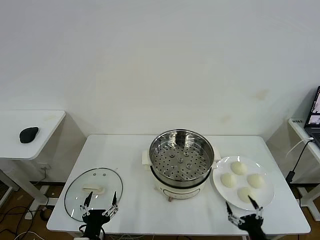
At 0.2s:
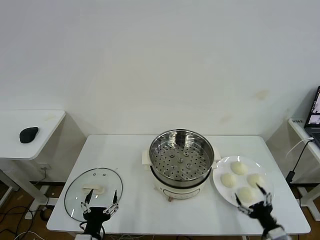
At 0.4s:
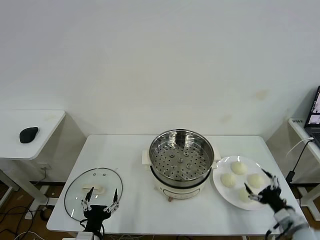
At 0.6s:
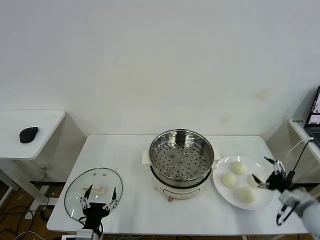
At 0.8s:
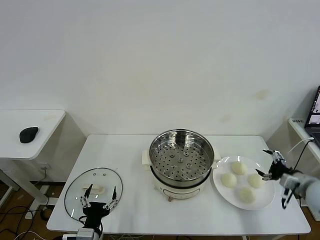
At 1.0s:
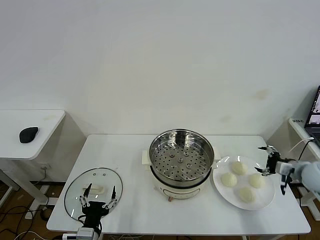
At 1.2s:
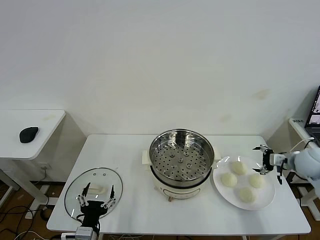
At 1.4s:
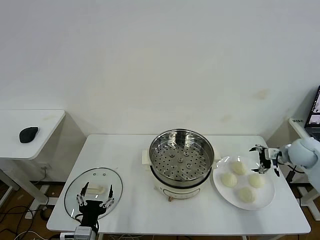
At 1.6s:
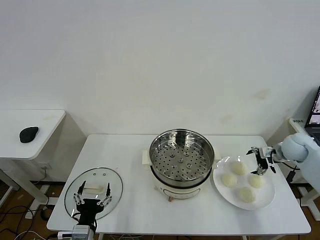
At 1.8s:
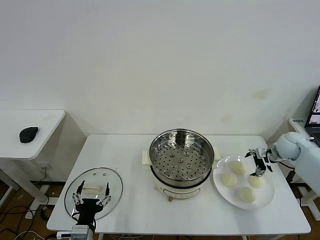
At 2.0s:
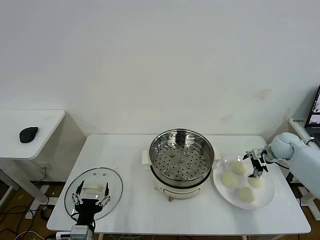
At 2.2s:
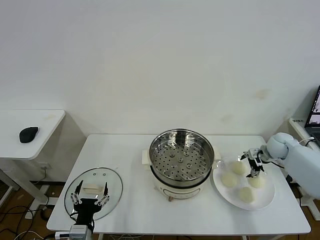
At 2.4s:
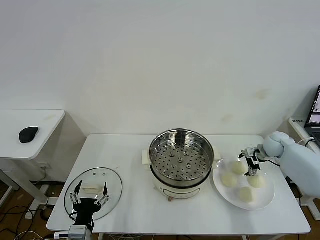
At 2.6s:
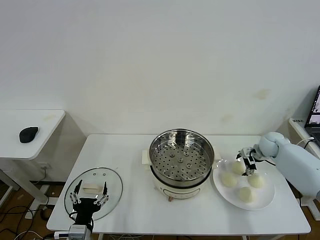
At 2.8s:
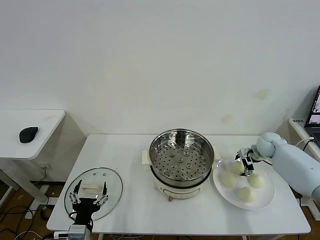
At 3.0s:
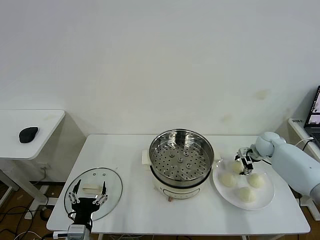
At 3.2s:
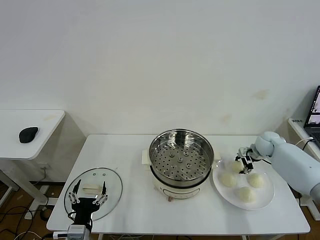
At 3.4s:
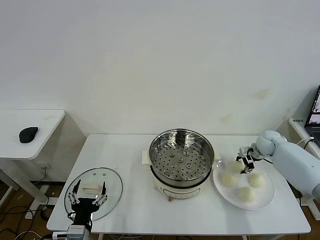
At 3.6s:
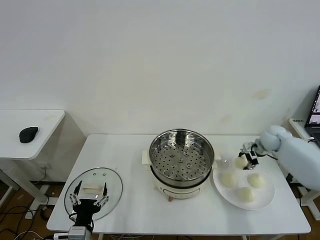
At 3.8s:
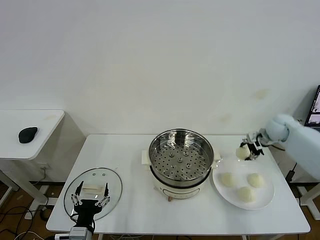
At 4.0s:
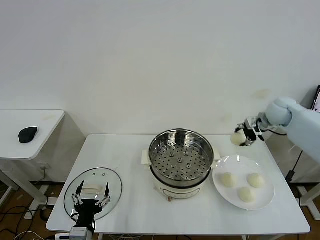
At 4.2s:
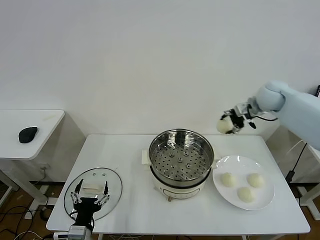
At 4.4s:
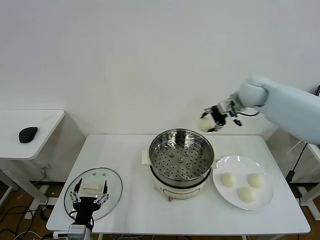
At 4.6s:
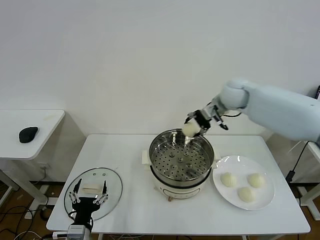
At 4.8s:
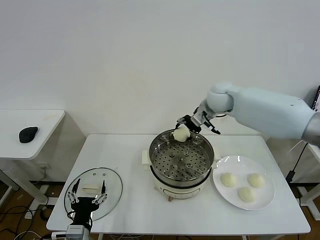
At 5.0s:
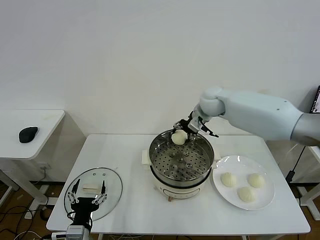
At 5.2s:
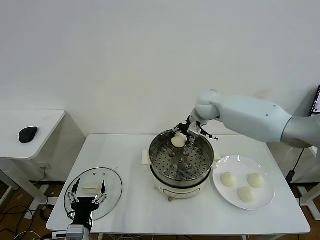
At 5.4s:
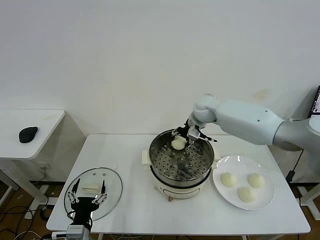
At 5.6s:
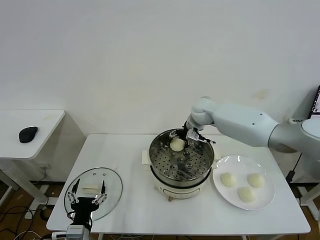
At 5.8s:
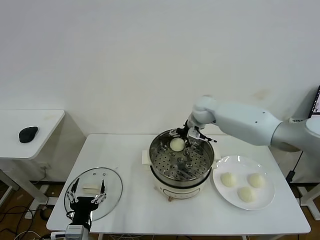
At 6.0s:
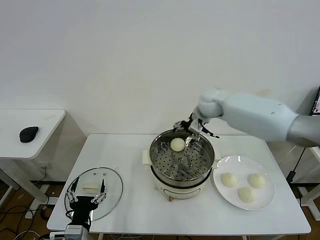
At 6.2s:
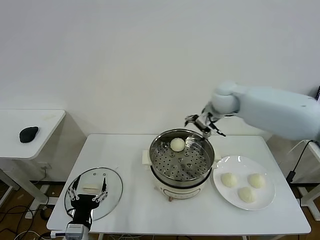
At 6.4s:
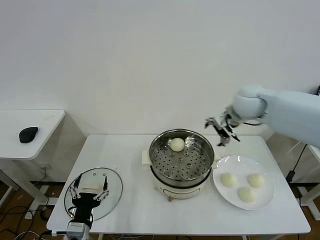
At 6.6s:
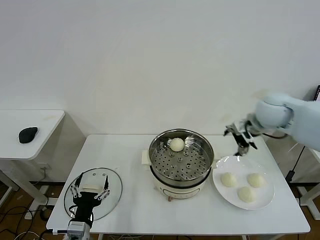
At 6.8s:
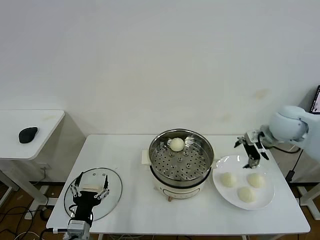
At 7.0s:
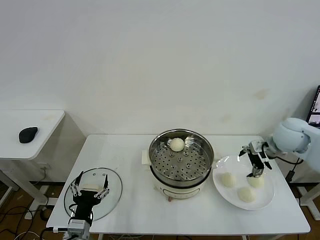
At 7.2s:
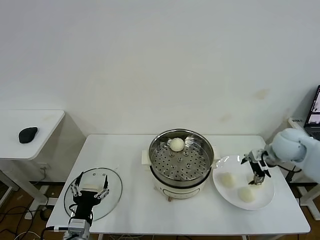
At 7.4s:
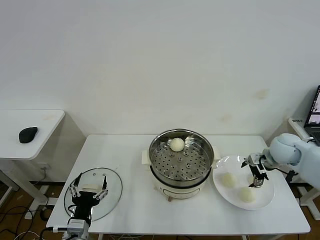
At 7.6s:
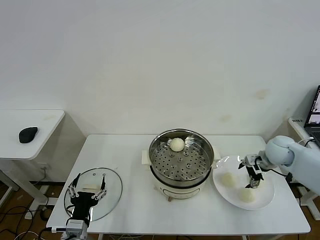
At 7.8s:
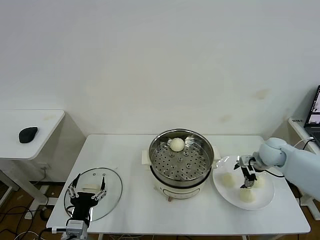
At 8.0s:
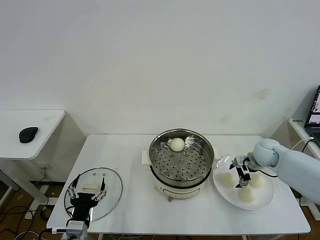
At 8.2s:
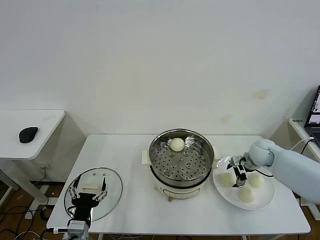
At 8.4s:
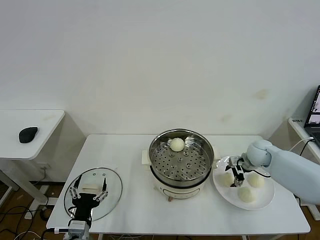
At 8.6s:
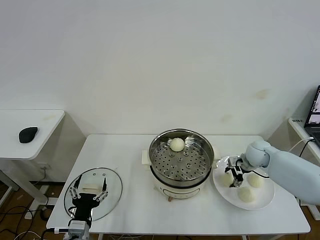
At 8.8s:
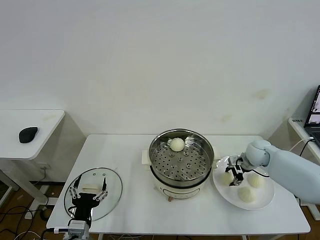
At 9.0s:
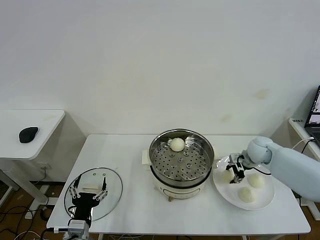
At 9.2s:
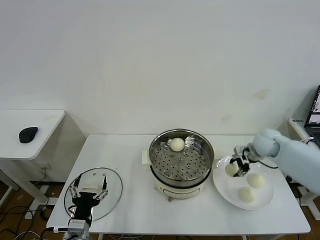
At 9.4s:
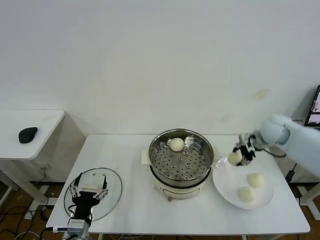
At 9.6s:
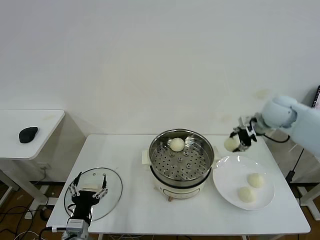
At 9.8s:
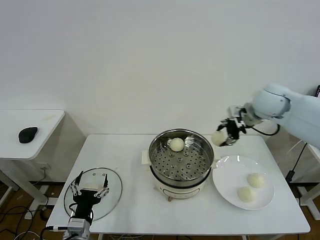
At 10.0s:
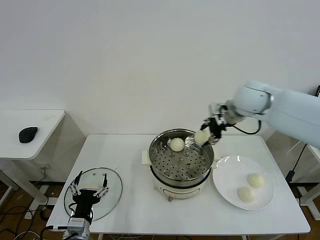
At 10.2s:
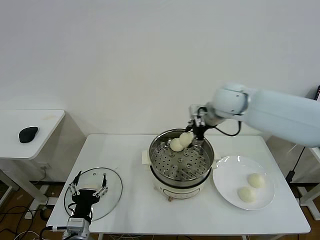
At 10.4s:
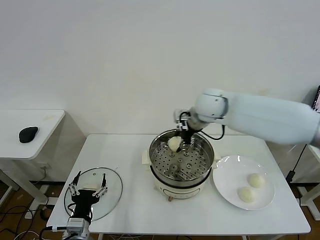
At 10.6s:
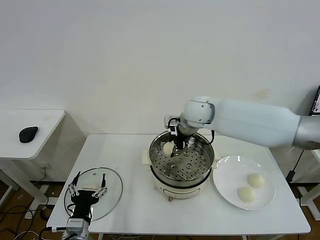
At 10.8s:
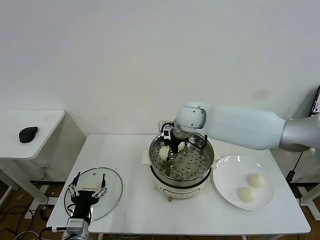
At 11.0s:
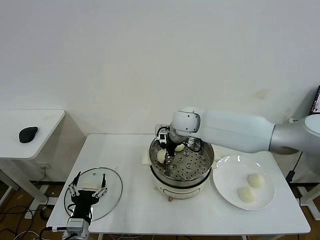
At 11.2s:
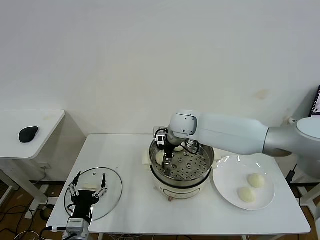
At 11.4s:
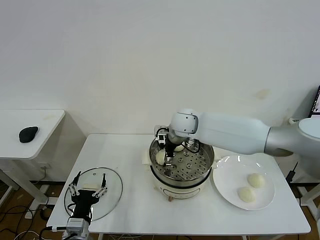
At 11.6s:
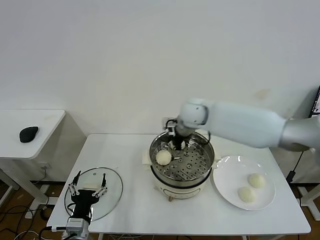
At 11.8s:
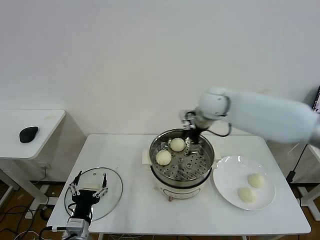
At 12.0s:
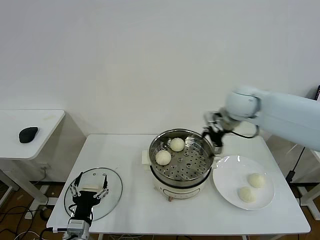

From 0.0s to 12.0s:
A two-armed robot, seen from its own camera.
Task of the whole recording: take steamed baozi put them in steamer then cover it.
Step, from 0.0s to 3.2s: Grasp the baozi in the plate with right gripper.
Step, from 3.6s to 5.8s: Place the baozi on the steamer with right gripper.
Step, from 6.0s to 8.6s: Grasp the baozi in the plate with right gripper.
Step, from 8.8s to 11.4s: Place the baozi on the steamer with right gripper.
From 1.6s to 3.0s: The right gripper heads forward and downward, covering approximately 10 cm, and closes.
From 3.0s to 4.4s: The right gripper goes roughly 30 cm upward and to the left.
From 4.4s to 6.0s: The right gripper heads to the left, covering some 10 cm, and opens up.
From 6.0s to 7.6s: The right gripper goes some 30 cm to the right, downward and backward.
From 7.6s to 9.0s: The right gripper shifts by about 5 cm, and closes.
From 9.0s to 10.4s: The right gripper heads to the left and upward, covering roughly 30 cm.
From 10.4s to 12.0s: The right gripper goes about 10 cm to the right, and opens up.

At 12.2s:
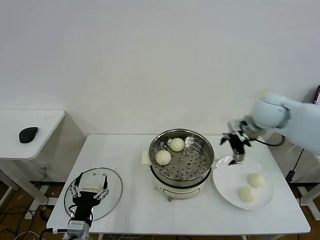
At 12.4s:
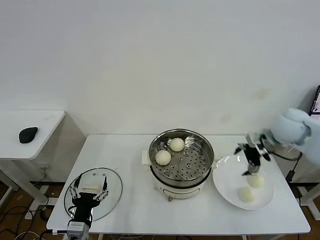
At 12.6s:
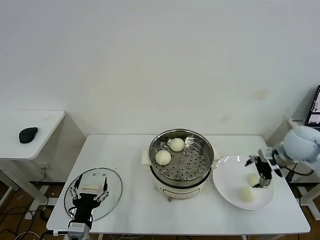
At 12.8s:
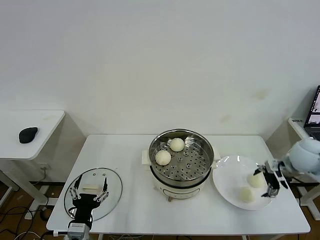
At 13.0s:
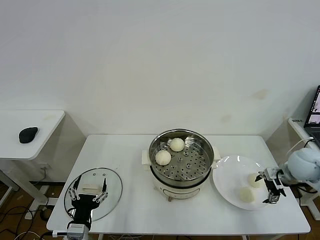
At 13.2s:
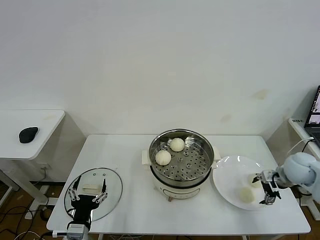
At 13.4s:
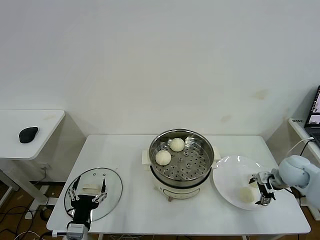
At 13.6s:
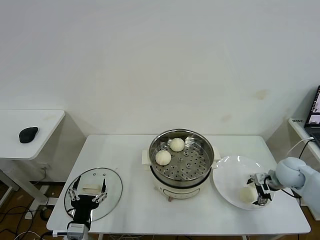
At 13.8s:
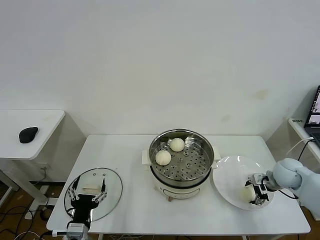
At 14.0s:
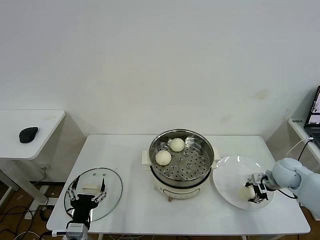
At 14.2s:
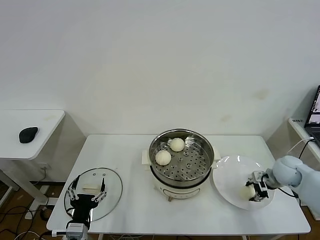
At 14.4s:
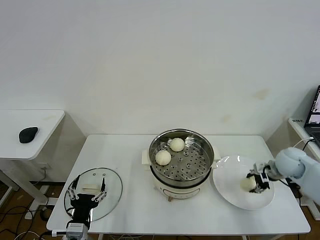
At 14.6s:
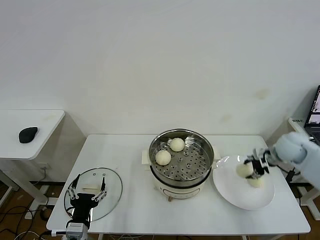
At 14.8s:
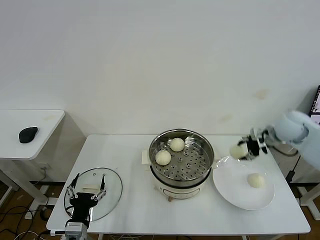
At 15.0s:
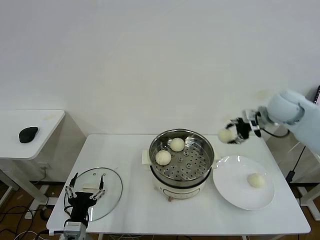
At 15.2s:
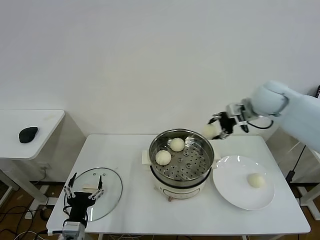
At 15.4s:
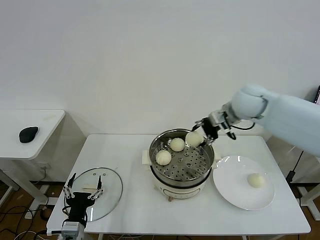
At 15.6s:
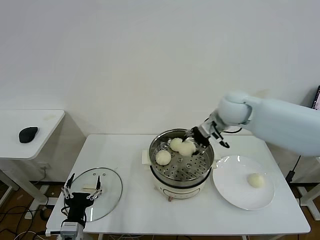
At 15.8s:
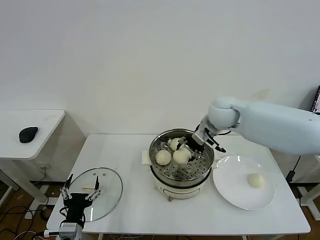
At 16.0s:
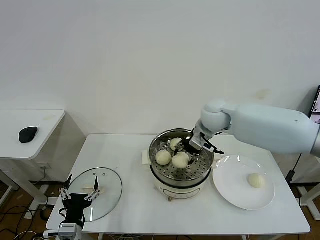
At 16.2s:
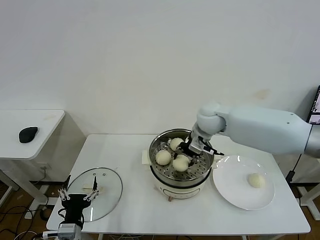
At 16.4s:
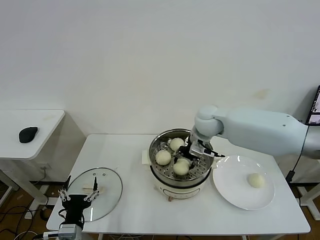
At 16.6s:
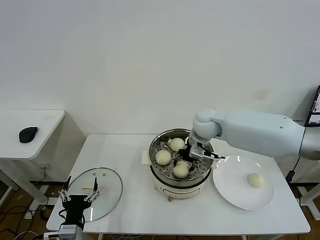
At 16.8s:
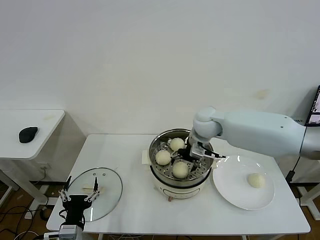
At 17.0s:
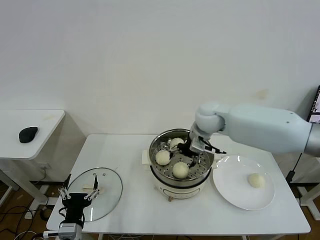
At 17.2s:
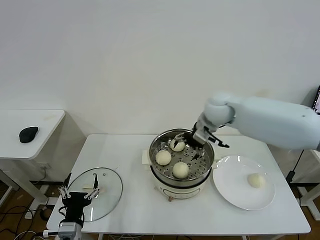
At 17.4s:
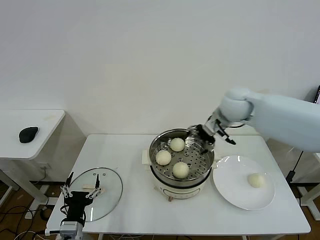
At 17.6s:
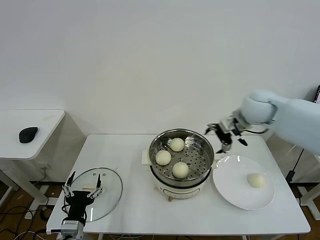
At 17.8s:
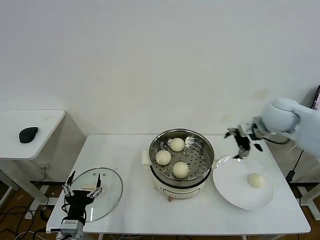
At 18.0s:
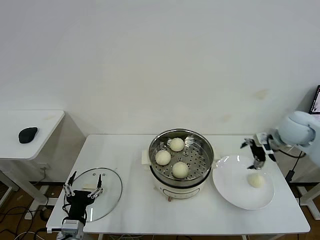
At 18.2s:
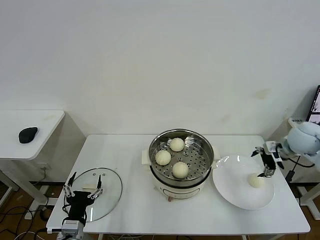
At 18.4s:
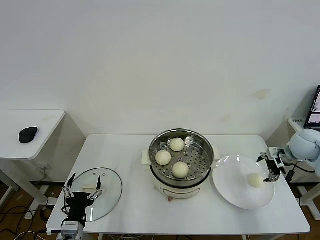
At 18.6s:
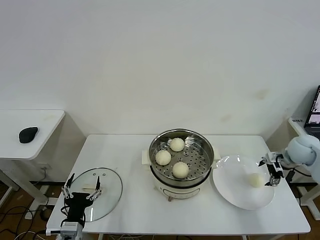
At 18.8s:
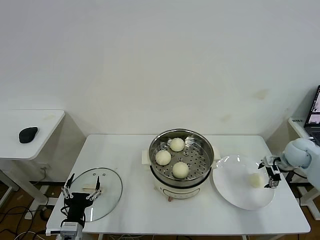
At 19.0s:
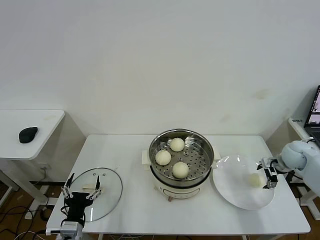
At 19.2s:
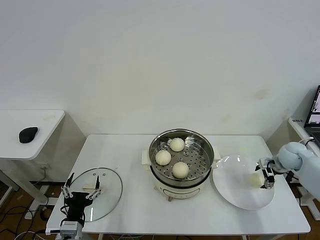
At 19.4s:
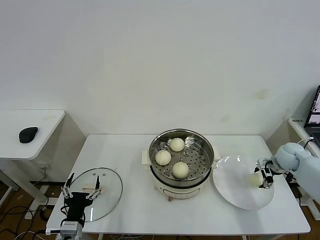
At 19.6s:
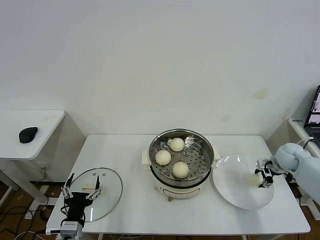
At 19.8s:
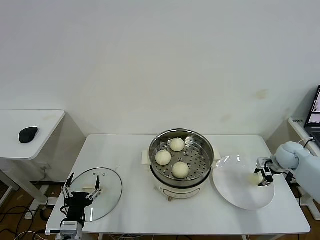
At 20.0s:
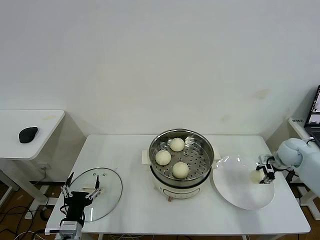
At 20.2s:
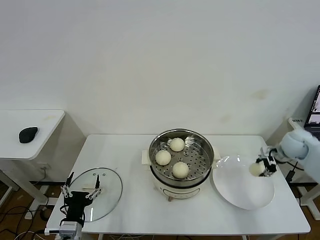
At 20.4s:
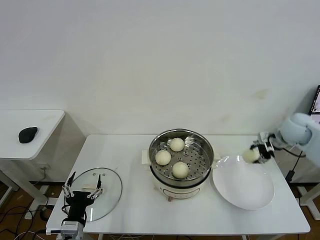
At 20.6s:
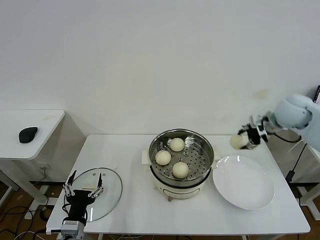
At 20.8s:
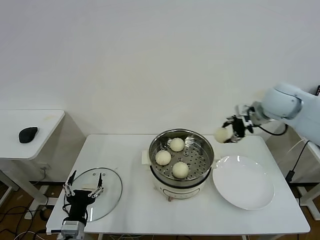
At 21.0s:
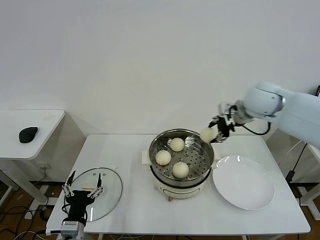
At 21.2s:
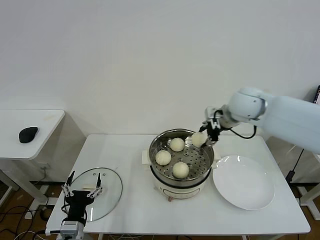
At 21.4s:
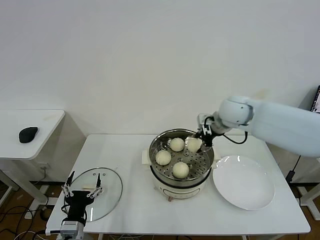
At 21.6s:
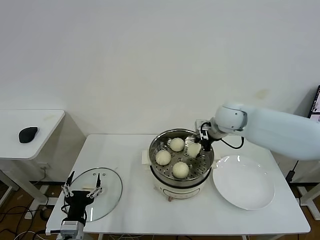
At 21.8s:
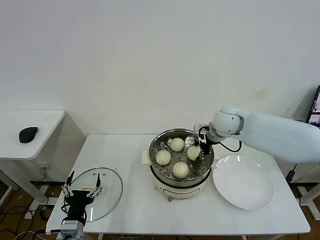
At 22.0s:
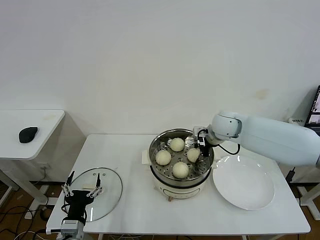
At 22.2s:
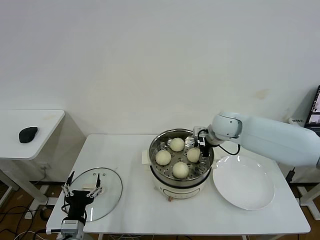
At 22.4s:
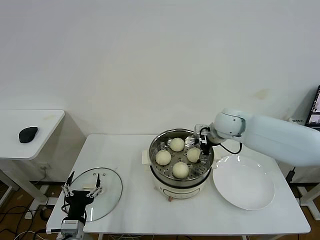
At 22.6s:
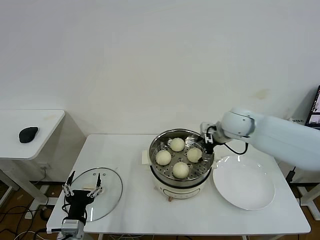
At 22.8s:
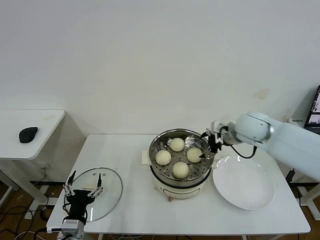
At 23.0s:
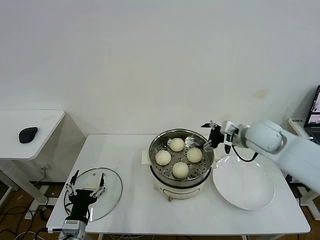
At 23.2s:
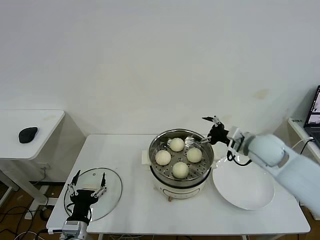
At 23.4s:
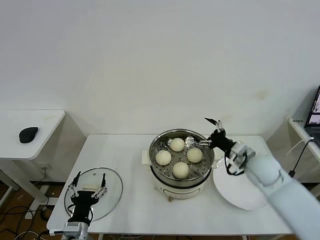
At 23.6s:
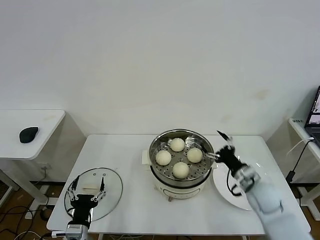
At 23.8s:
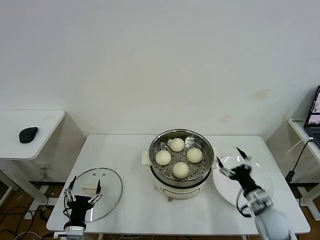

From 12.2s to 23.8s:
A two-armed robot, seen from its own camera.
Task of the whole recording: take steamed baozi put them in steamer then cover it.
Step, from 12.2s to 14.2s: Grasp the baozi in the plate with right gripper.
Step, from 14.4s to 17.0s: Place the baozi on the steamer with right gripper.
Step, from 17.2s to 19.6s: Grasp the baozi in the plate with right gripper.
Step, from 19.8s to 22.4s: Place the baozi on the steamer with right gripper.
From 12.2s to 13.6s: The right gripper heads downward and to the right, covering roughly 25 cm.
From 13.6s to 15.0s: The right gripper heads upward and forward, covering some 25 cm, and closes.
From 15.0s to 16.6s: The right gripper moves to the left, roughly 20 cm.
From 16.6s to 18.0s: The right gripper travels to the right by approximately 25 cm, and opens up.
From 18.0s to 19.4s: The right gripper goes some 15 cm downward and to the right, and closes up.
From 19.4s to 21.0s: The right gripper heads upward and to the left, covering some 30 cm, and closes.
From 21.0s to 22.4s: The right gripper is displaced downward and to the left by some 10 cm, and opens.
From 22.4s to 23.8s: The right gripper moves backward, downward and to the right, roughly 35 cm.
